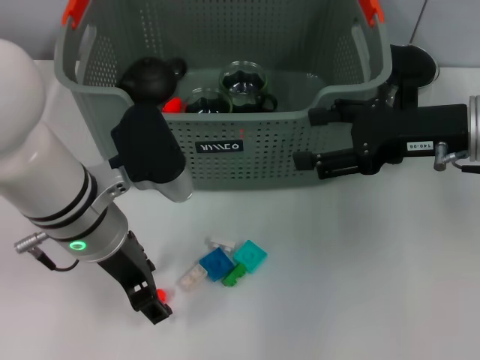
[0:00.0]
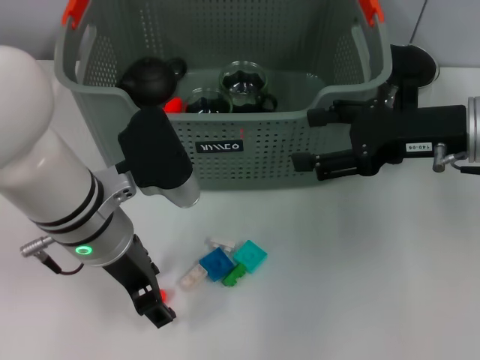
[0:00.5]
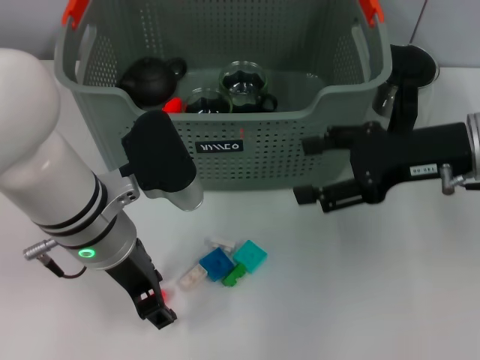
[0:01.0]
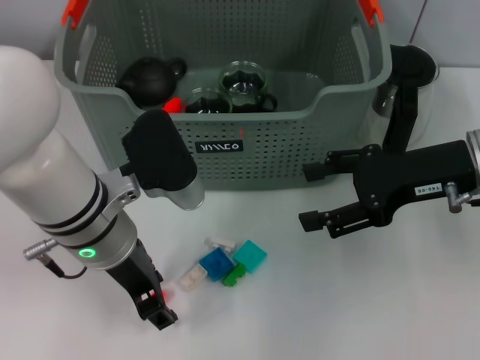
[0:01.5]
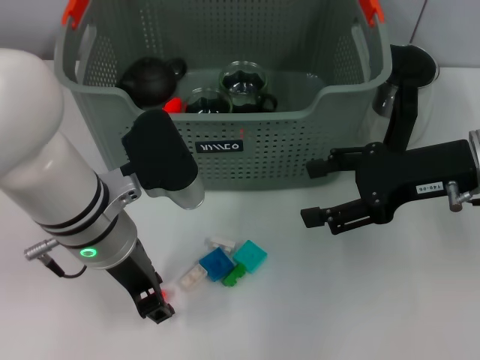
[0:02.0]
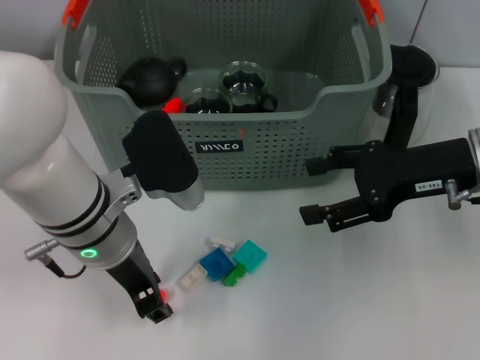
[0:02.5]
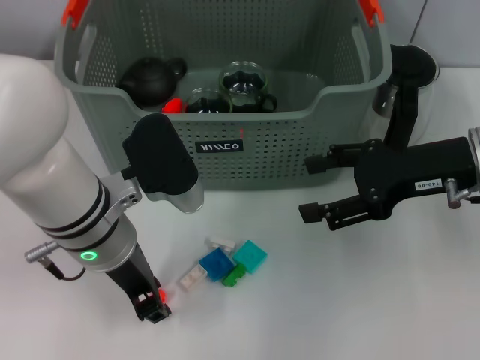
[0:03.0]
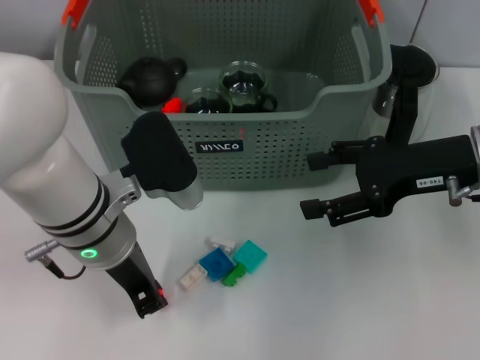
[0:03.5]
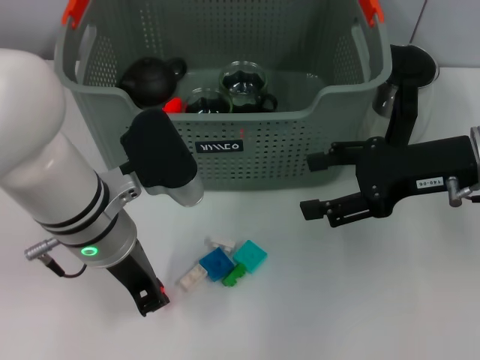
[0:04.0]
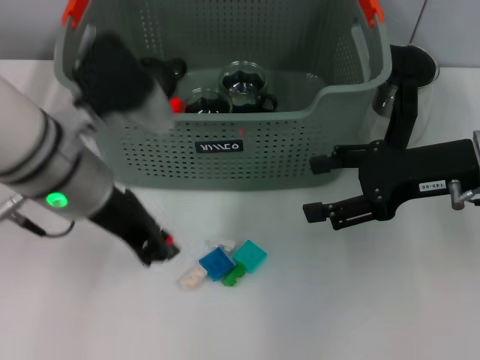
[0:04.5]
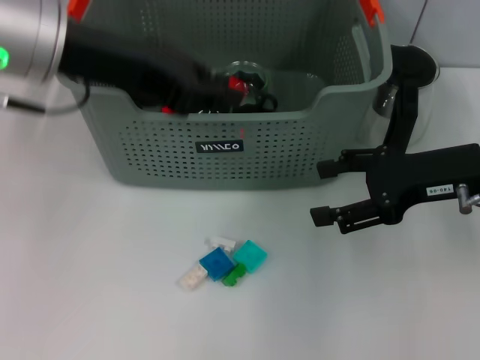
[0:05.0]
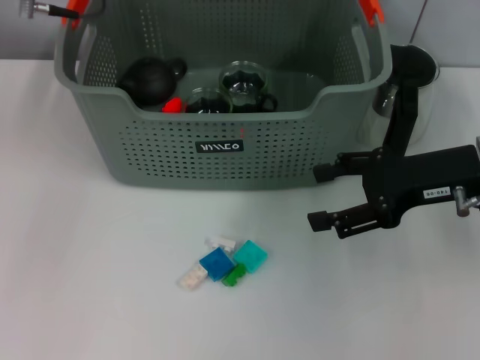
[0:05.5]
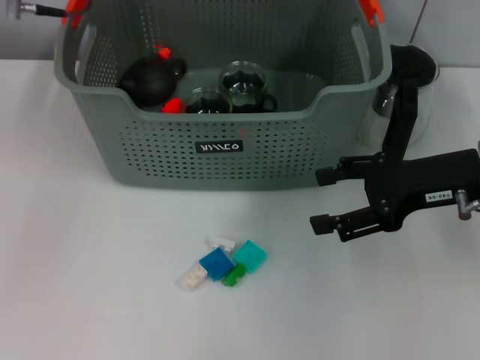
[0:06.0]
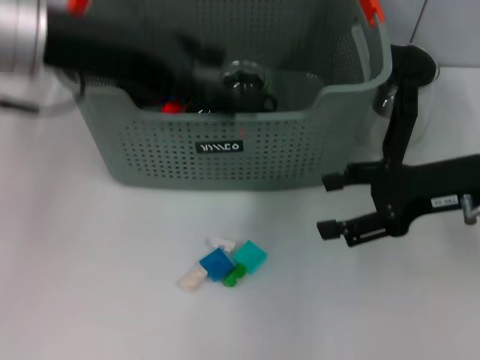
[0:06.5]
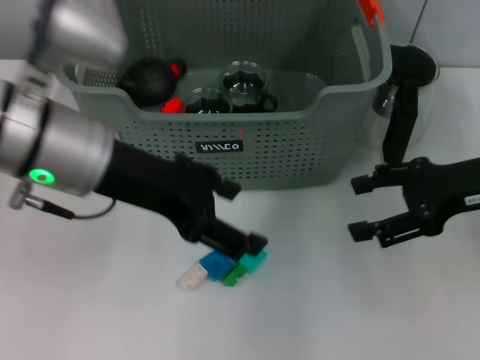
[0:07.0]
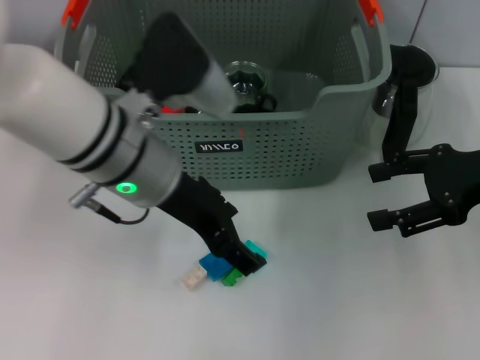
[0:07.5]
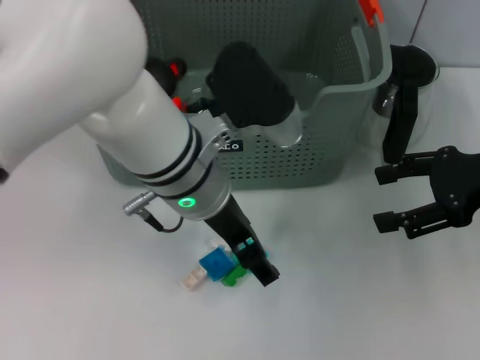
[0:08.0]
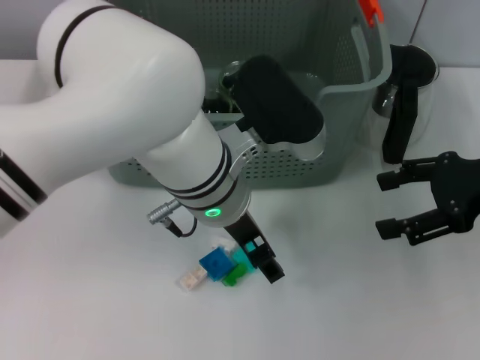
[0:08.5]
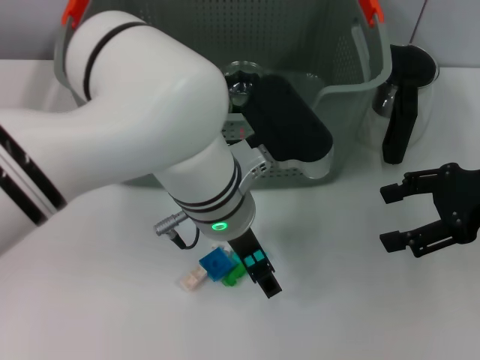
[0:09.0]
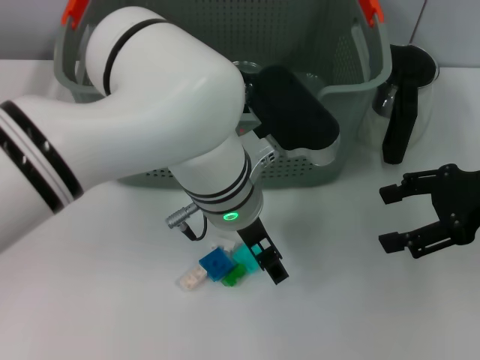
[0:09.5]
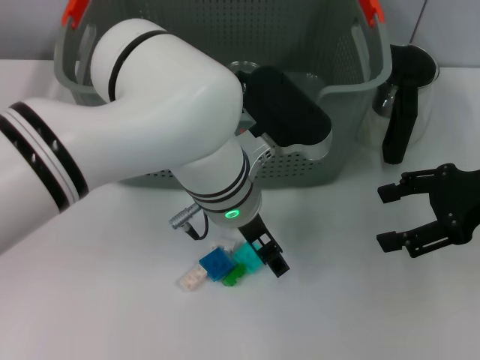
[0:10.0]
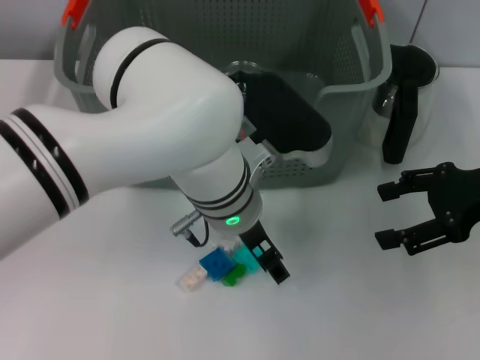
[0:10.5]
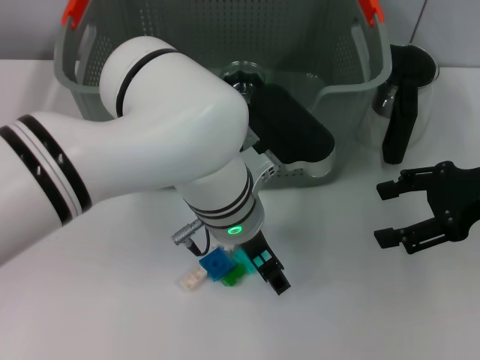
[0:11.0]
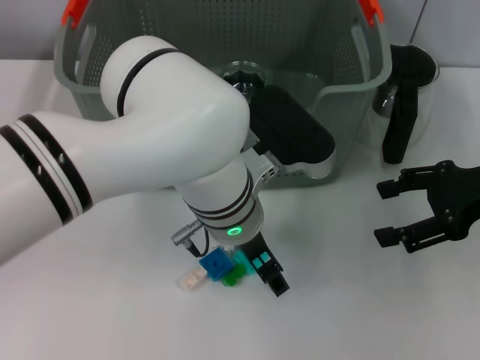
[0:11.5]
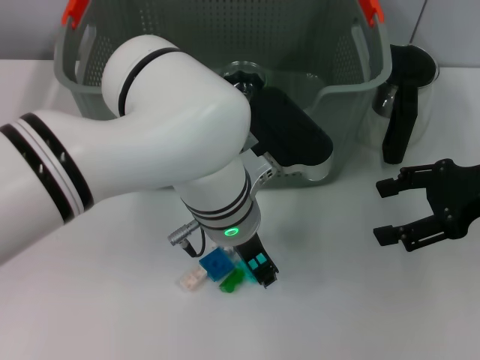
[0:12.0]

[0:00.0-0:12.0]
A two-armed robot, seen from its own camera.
Task of the whole recording: pick up the teacup on the table and place it into the storage bin, pick up the block on the table and place it into the storage bin.
Step, 0.0 to 3.0 s: Grasp the orange block with left gripper.
Step, 3.5 to 5.5 s: Place the orange block in the storage box with left gripper.
0.0 to 2.0 s: The grippers stay close to where they were, moving slightly.
2.0 to 4.0 s: The left gripper closes up.
4.0 to 6.0 s: The left gripper goes roughly 20 cm upward, forward and to the left, and opens up.
6.0 to 8.0 s: The left gripper travels to the right, downward and backward by approximately 20 cm, and opens its fingers, while the right gripper shifts roughly 5 cm to the right.
8.0 to 10.0 s: The left gripper changes place by about 5 cm.
10.0 to 12.0 s: Both grippers stay put.

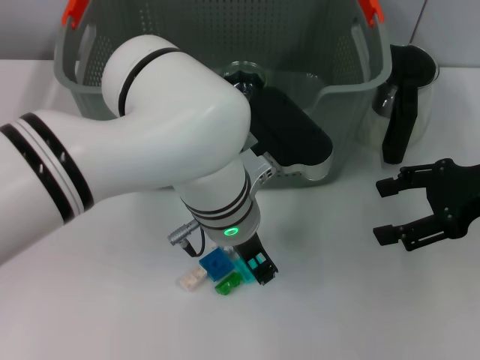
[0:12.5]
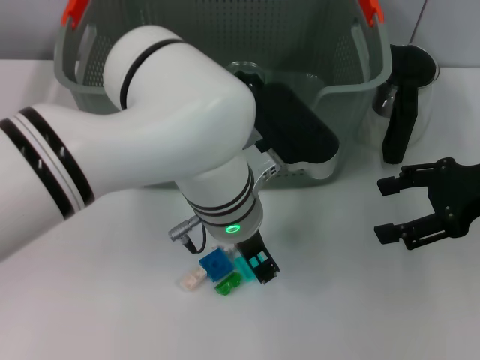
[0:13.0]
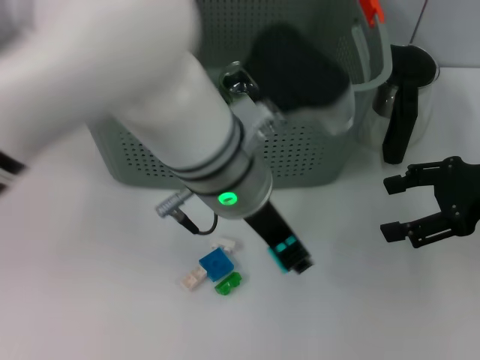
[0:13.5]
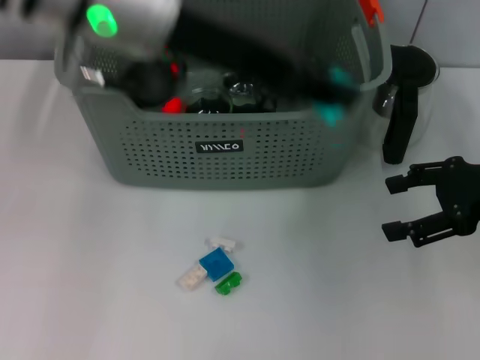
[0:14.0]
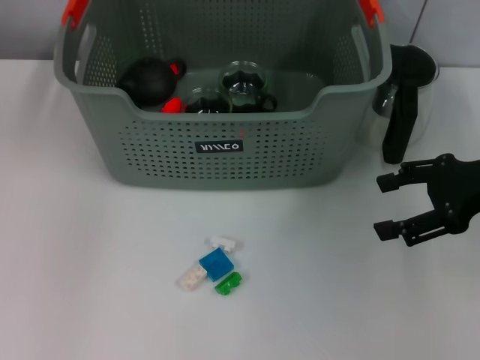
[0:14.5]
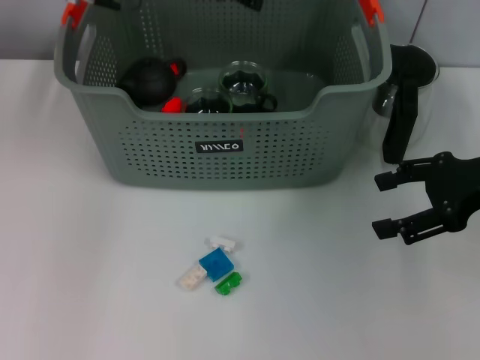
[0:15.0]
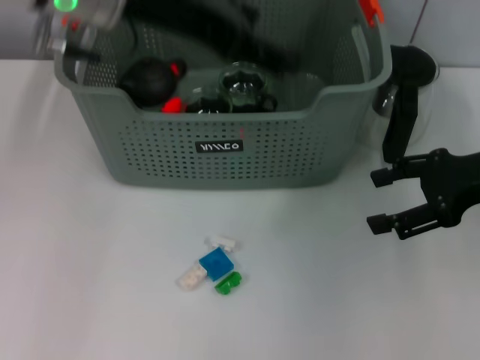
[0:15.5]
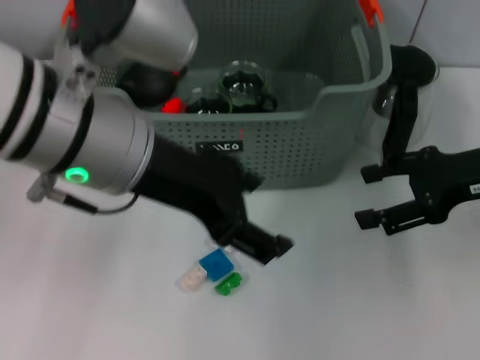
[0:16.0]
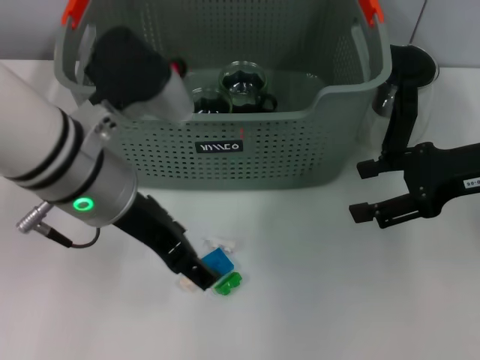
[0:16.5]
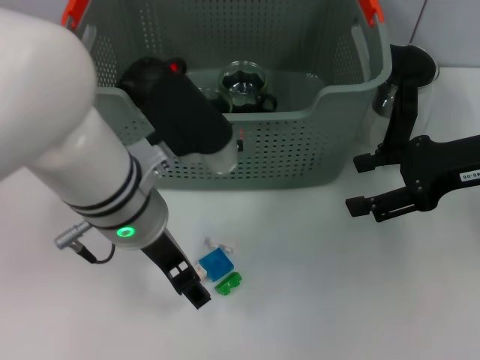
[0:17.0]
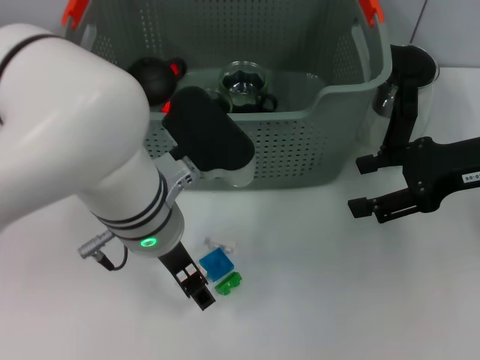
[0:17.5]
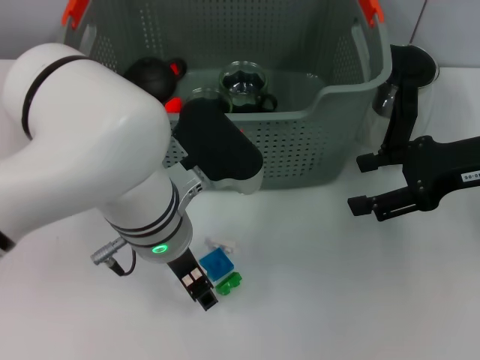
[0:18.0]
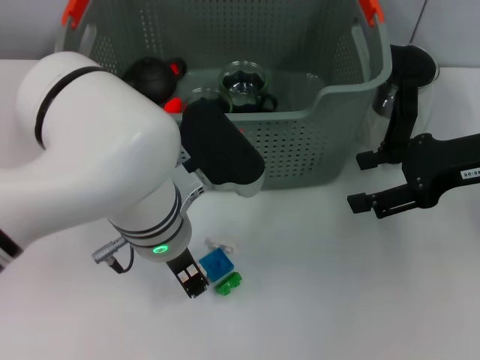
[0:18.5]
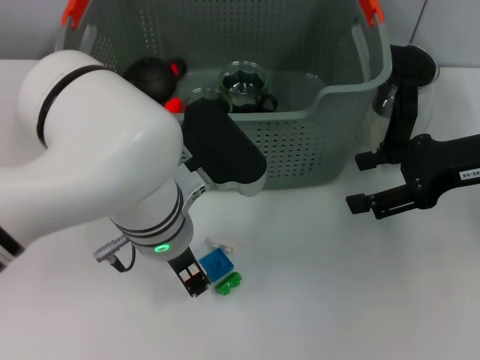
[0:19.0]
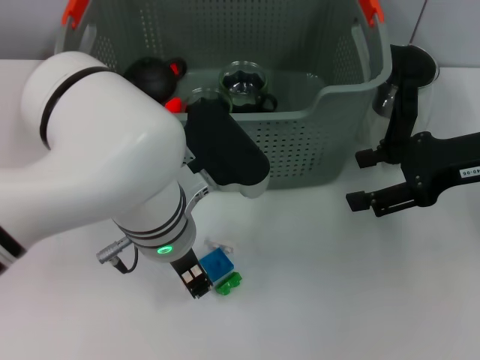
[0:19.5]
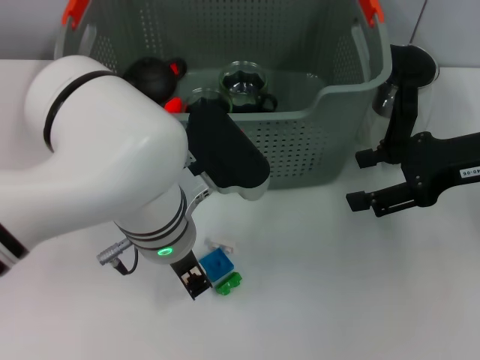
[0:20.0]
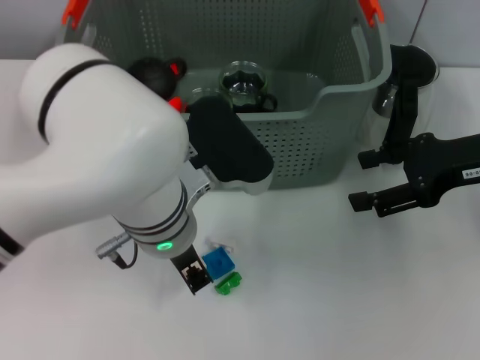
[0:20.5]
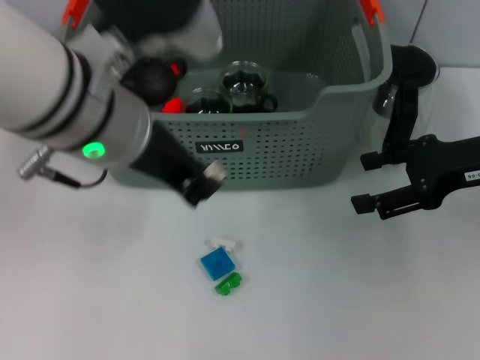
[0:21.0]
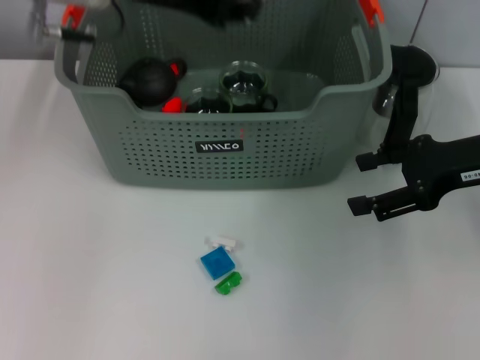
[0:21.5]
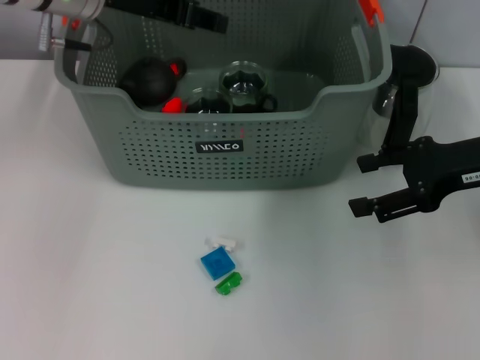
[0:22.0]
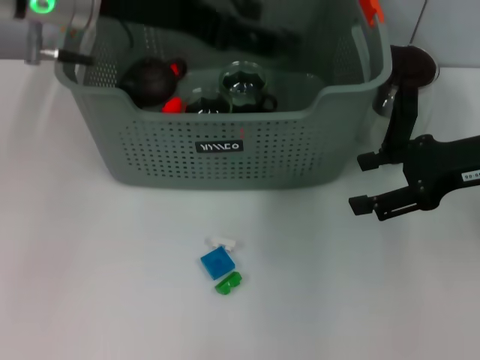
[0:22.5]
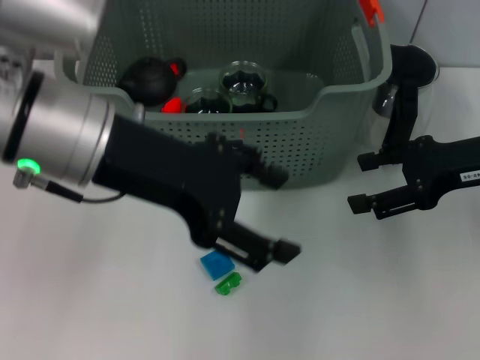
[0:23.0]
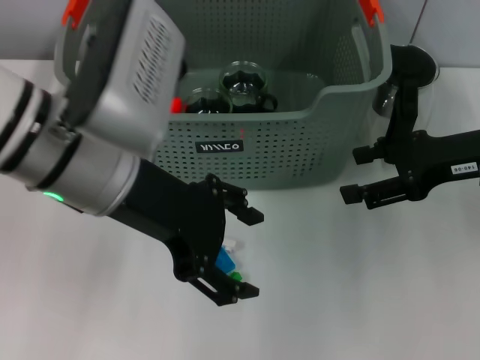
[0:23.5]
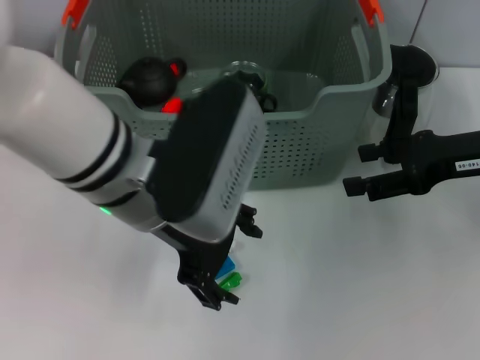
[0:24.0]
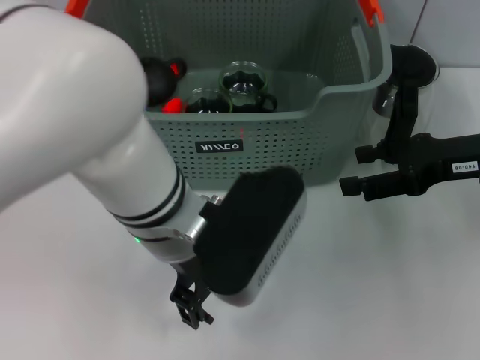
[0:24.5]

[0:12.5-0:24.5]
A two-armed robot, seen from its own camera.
Task of the whole recording: pick up the teacup on the table and place it into the storage bin, pick up the block on the table and place it into the storage bin.
Step, 12.5 to 14.5 s: Place the light blue block in the storage box with left gripper.
Step, 15.0 to 20.0 s: Grasp the white block with left gripper.
Step, 20.5 to 22.0 s: Place the white block in the storage box with left gripper.
12.5 to 14.5 s: The left gripper heads upward, to the left and forward, covering approximately 25 cm.
14.5 to 16.5 s: The left gripper heads backward and downward, covering approximately 20 cm, and opens up.
16.5 to 18.5 s: The left gripper goes roughly 10 cm downward and to the right.
18.5 to 20.5 s: The left gripper closes up.
20.5 to 22.5 s: The left gripper travels upward, to the left and forward by approximately 20 cm, and opens up.
22.5 to 24.5 s: The left gripper is displaced downward, to the right and backward by roughly 15 cm.

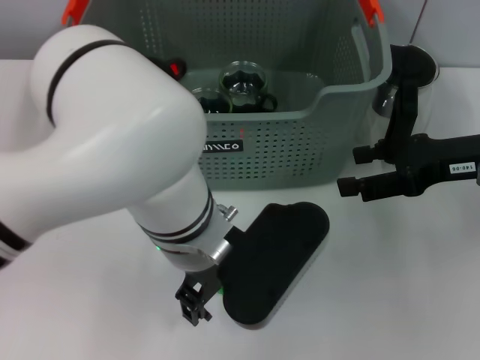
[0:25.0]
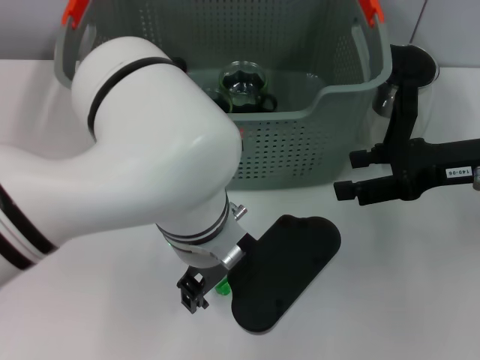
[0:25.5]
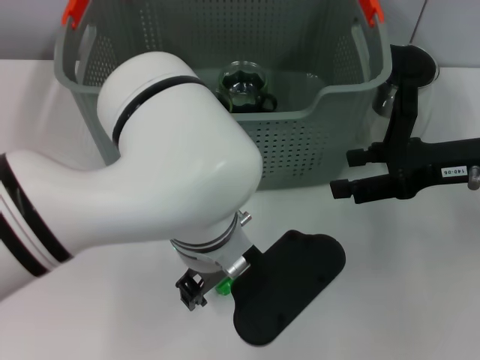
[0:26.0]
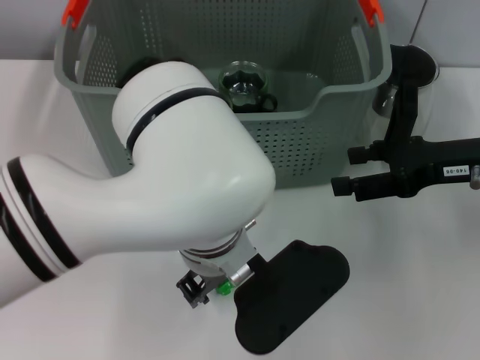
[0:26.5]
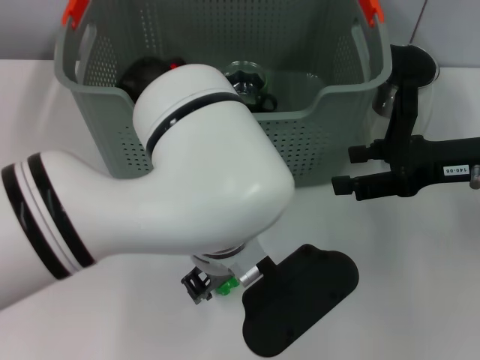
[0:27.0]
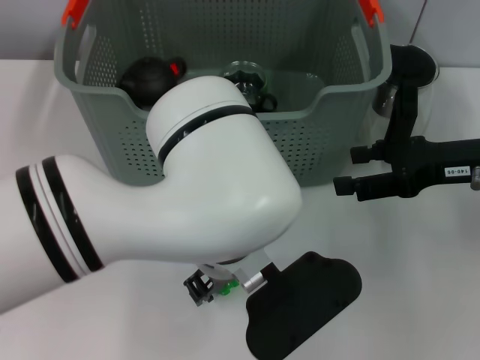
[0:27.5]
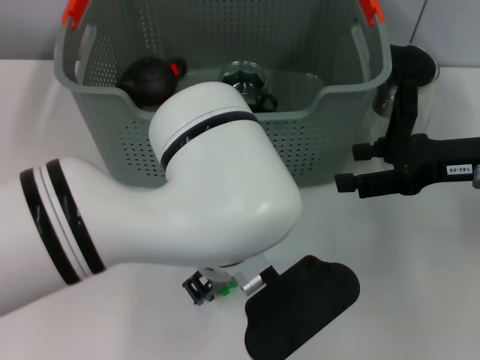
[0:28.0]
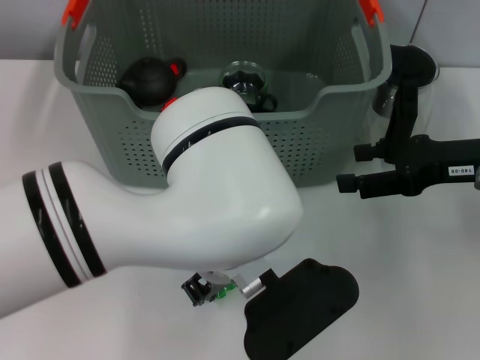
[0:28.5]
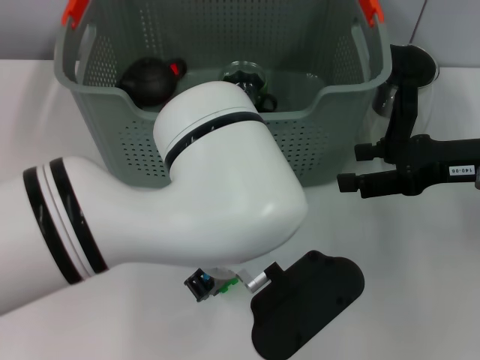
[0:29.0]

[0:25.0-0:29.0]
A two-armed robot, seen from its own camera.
Task of the whole recording: pick up the teacup on the table and place it into the storage bin, pick up the block on the table and place it into the storage bin.
Step, 25.0 to 28.5 s: Grasp the green block with left gripper.
27.0 to 29.0 s: Both grippers stay about where they are.
